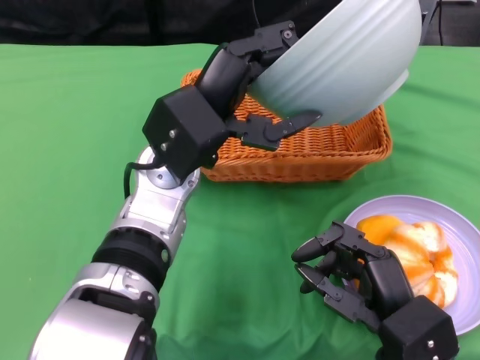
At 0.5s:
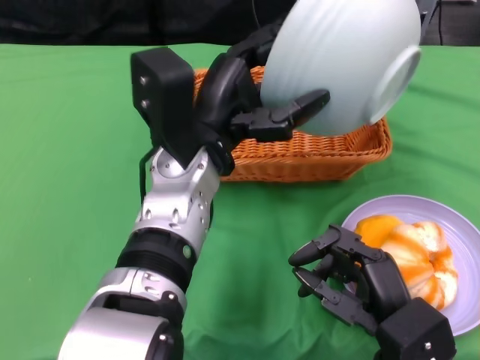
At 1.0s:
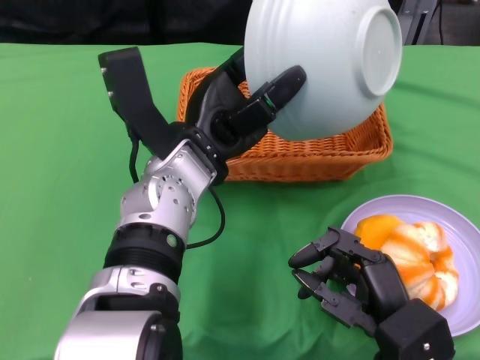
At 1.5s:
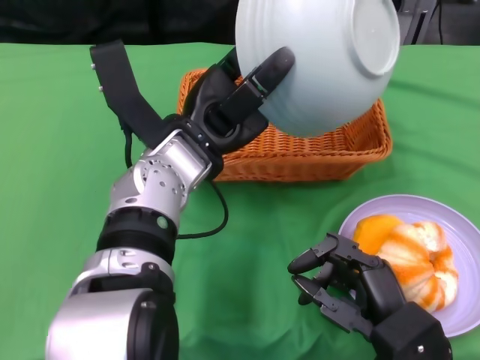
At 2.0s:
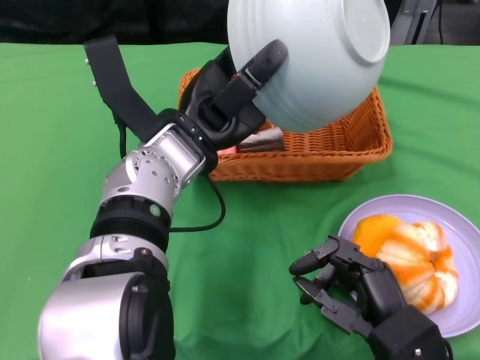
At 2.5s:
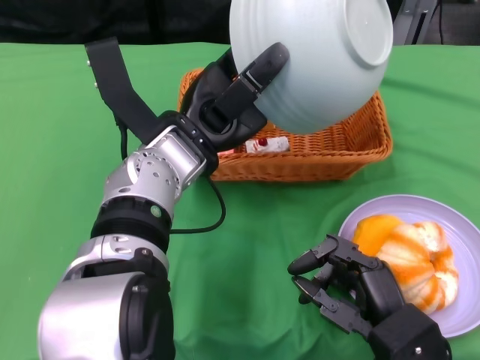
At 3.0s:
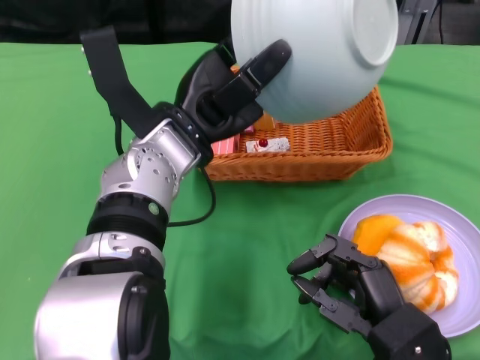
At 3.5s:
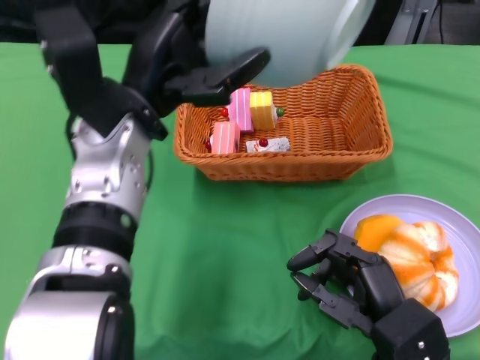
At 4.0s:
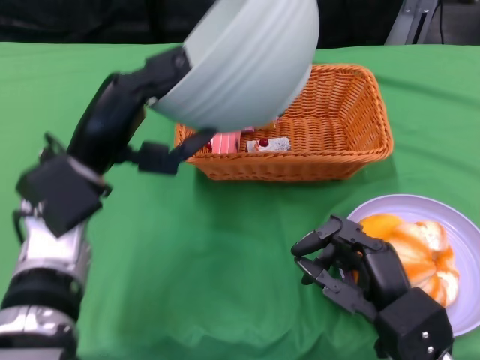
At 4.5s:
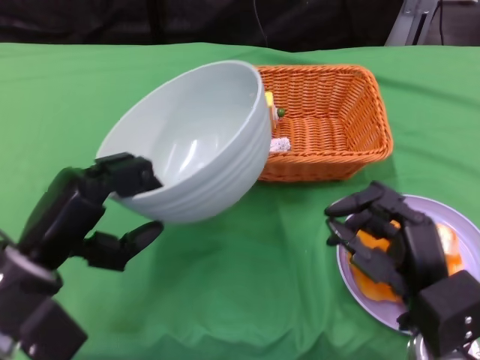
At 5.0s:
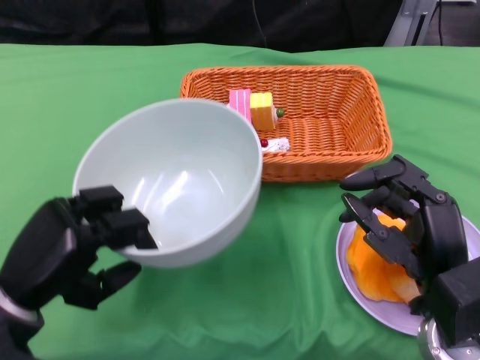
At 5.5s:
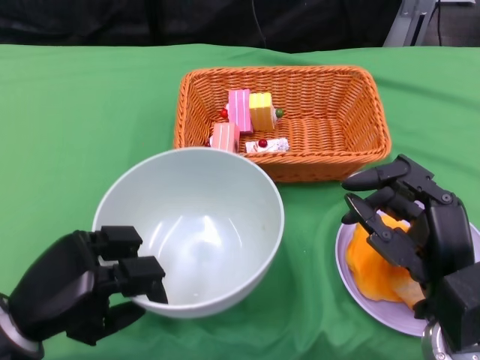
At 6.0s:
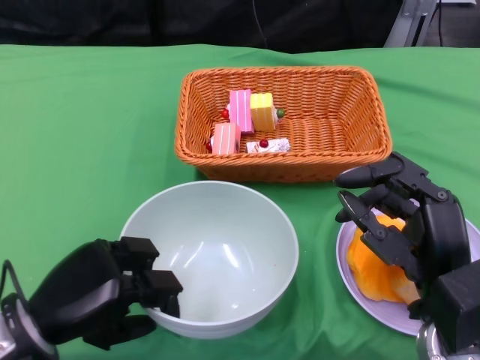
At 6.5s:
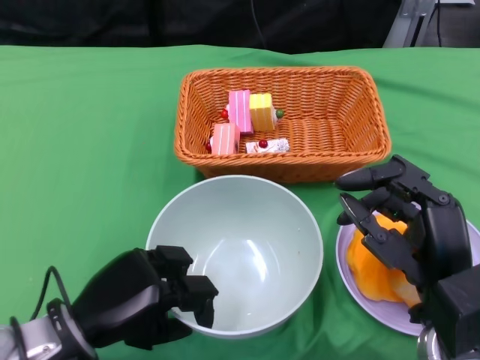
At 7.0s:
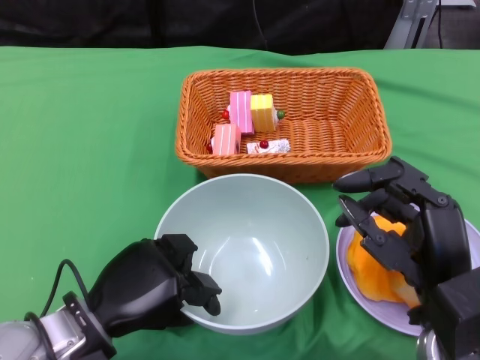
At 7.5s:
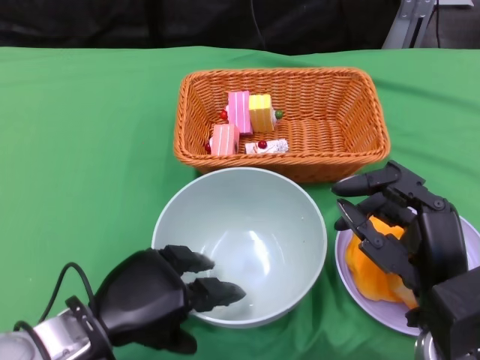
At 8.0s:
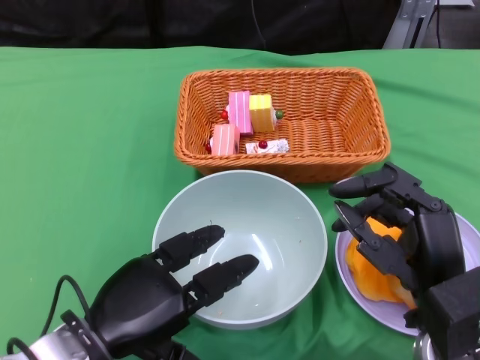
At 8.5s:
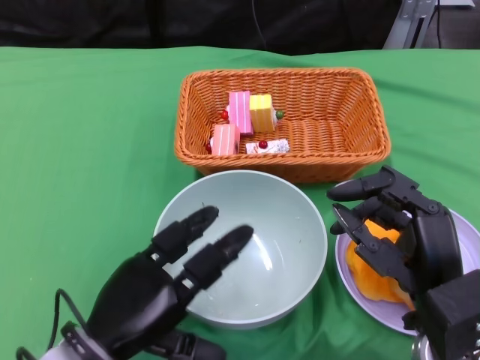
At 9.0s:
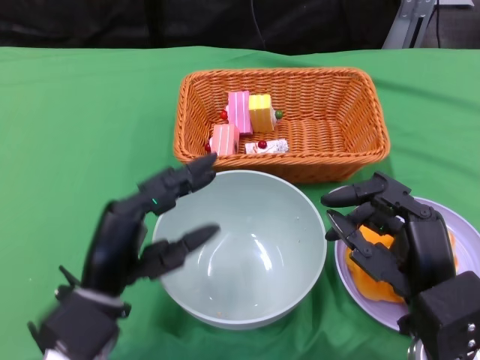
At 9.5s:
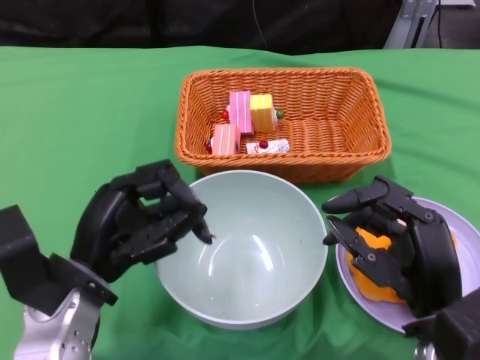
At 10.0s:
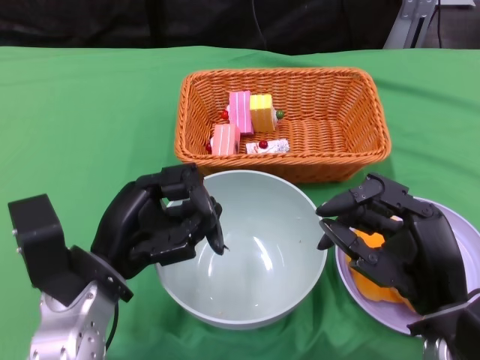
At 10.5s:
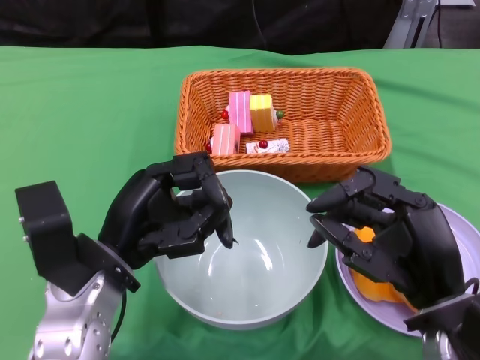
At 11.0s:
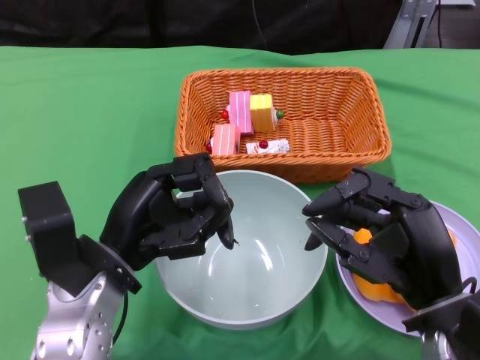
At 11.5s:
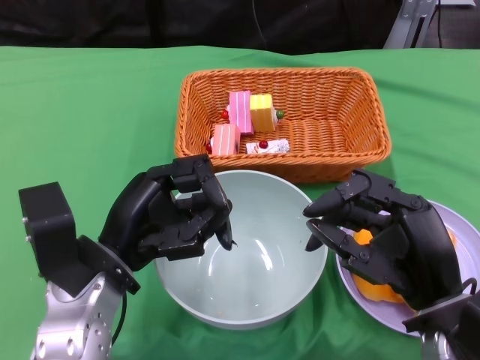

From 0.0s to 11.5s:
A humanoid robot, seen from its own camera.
Step, from 0.0s to 3.5s: Pour the cake into the basket with the left gripper.
Step, from 4.0s to 8.5s: Place the bowl on the table with the left gripper.
From 2.0s to 4.0s: The left hand heads to the left, covering some 10 cm.
From 4.0s to 6.0s: The left hand shifts approximately 15 cm backward, downward and to the left, while the right hand heads upward, covering approximately 5 cm.
From 6.0s to 7.5s: The left hand is displaced to the right by approximately 5 cm.
From 9.5s to 11.5s: The hands move only a little.

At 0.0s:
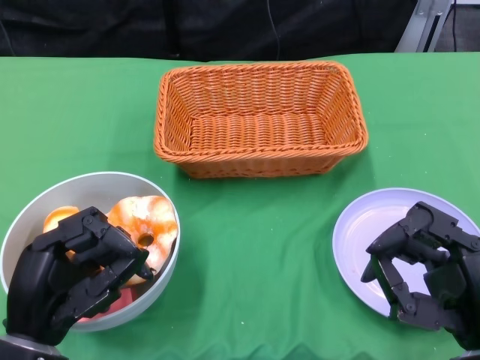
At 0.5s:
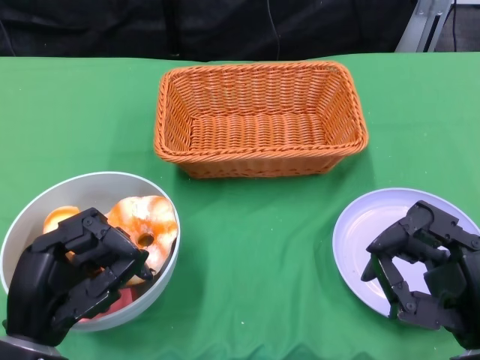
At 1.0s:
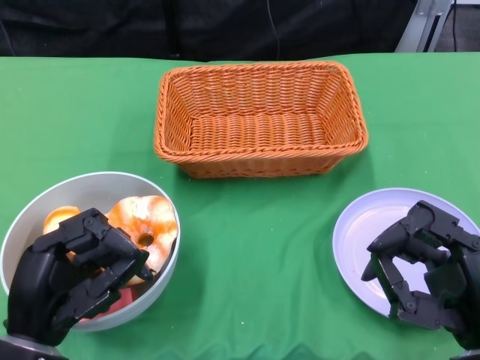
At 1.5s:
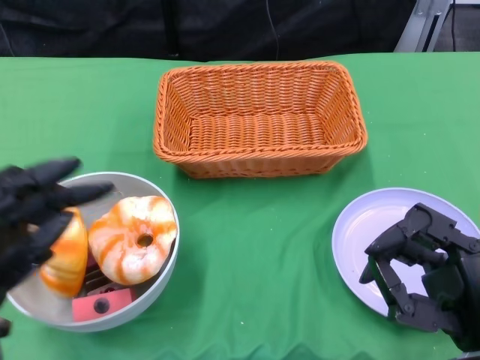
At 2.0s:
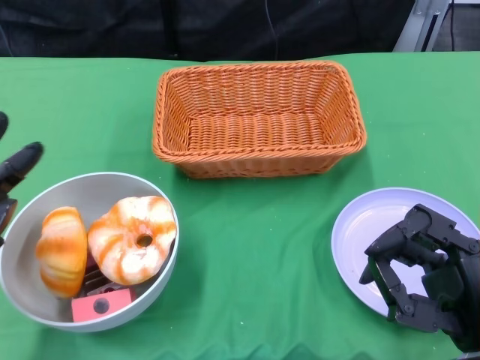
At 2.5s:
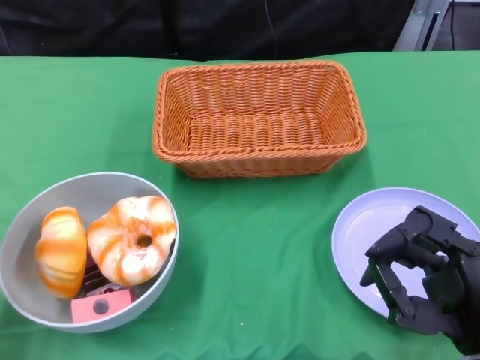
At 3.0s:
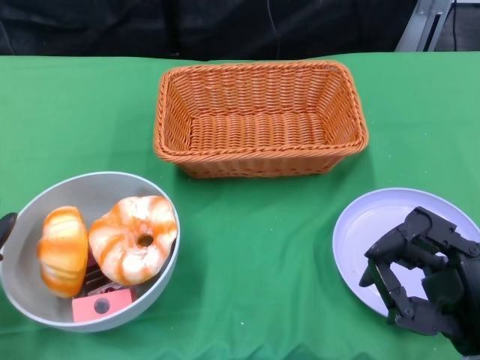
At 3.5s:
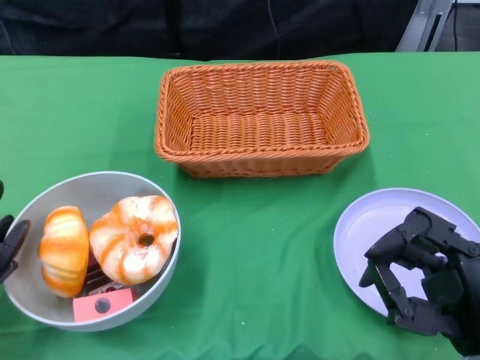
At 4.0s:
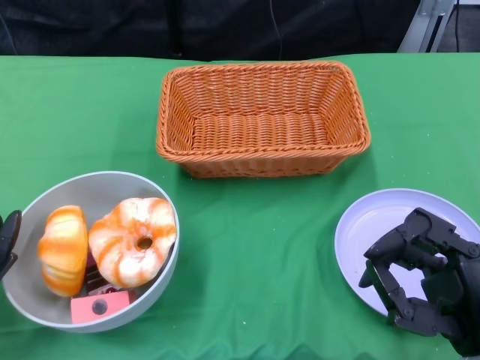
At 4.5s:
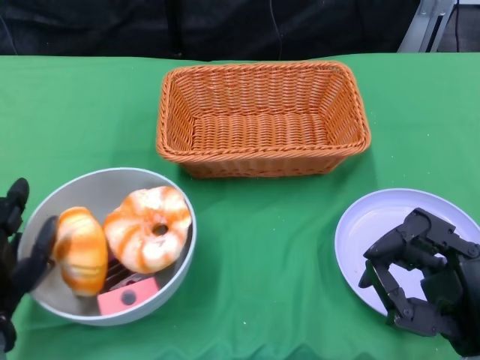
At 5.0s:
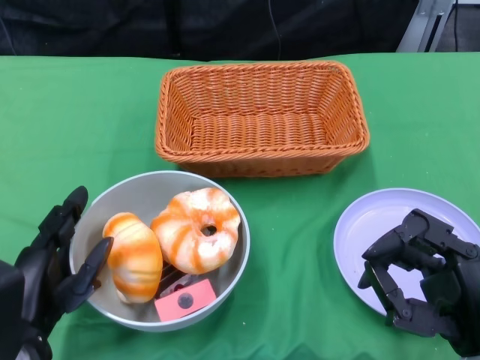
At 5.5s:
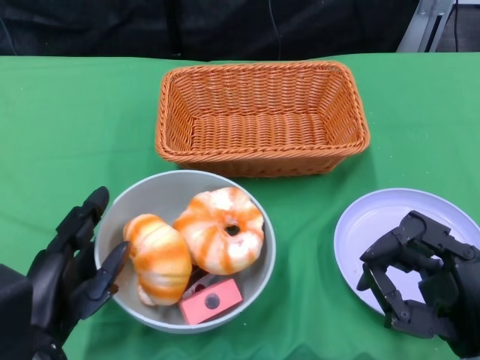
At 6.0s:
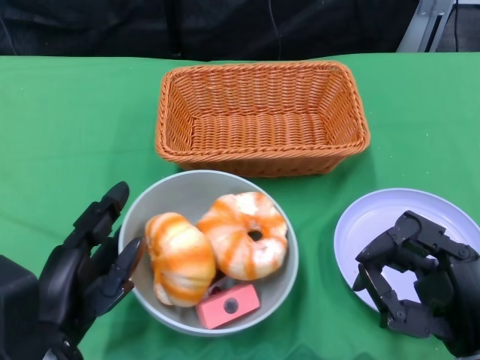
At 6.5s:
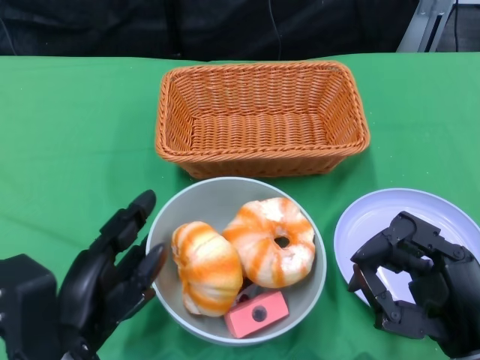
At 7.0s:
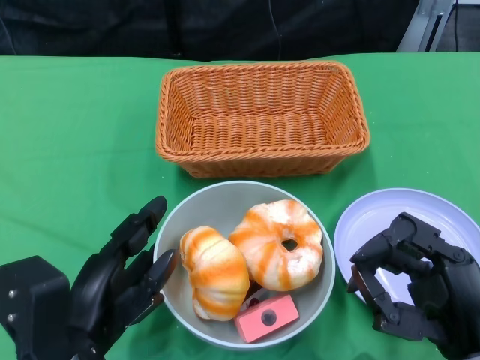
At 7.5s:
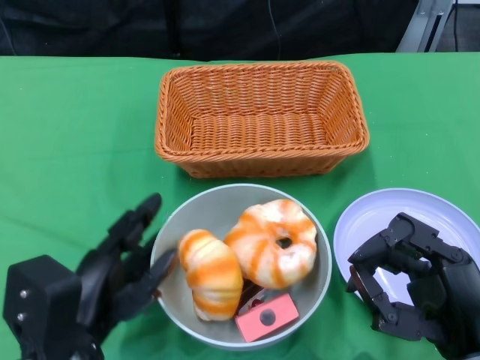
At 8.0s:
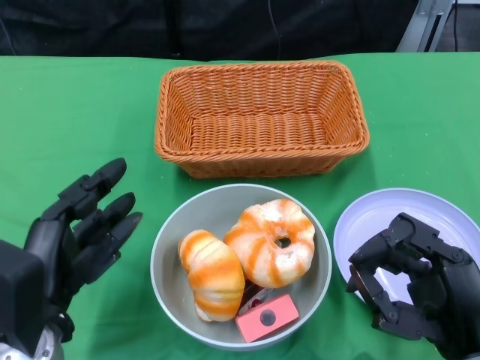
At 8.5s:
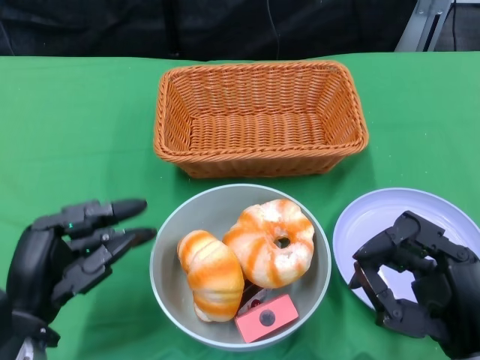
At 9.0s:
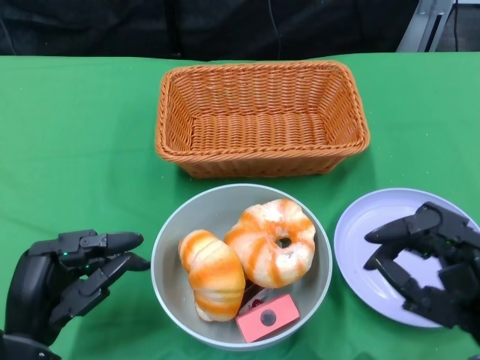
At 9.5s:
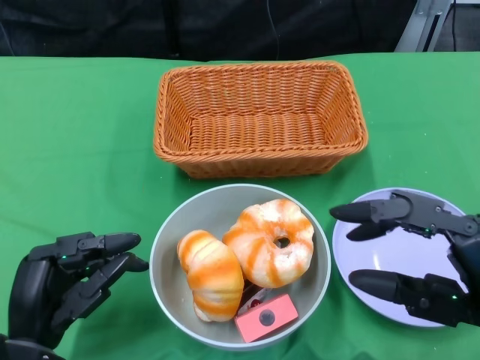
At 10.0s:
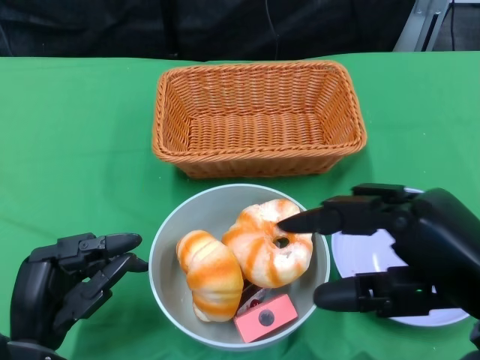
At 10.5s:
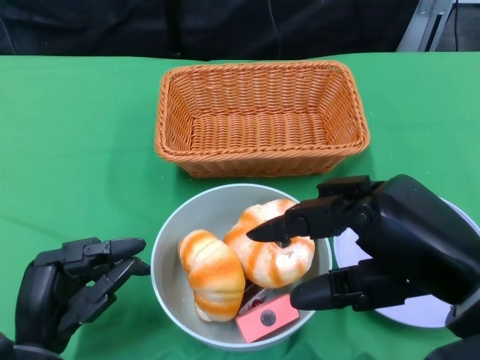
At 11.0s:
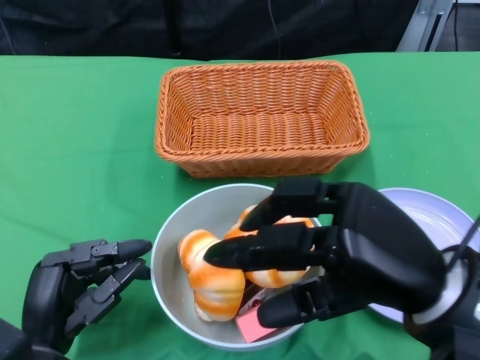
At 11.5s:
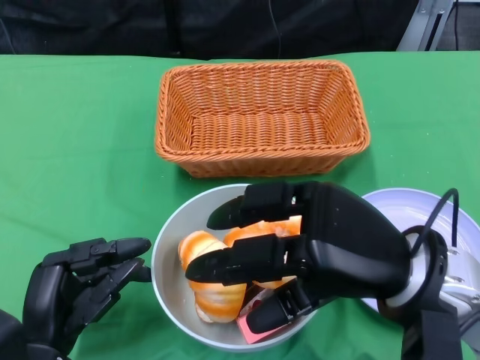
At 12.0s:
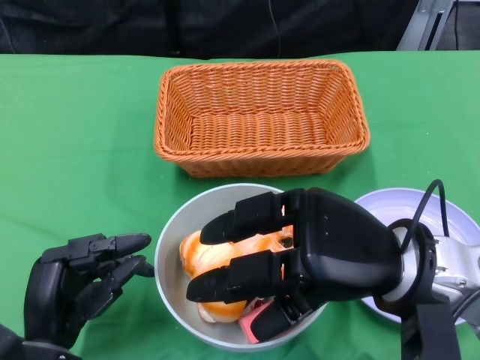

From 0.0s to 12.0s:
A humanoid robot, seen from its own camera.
Step, from 0.0s to 9.0s: Push the bowl to the center of the table using the left gripper.
From 2.0s to 4.0s: The left hand is displaced downward by about 5 cm.
From 4.0s to 6.0s: The left hand moves to the right, about 10 cm.
From 8.0s to 10.0s: The left hand shifts roughly 5 cm downward. Meanwhile the right hand heads upward, covering some 10 cm.
From 10.0s to 12.0s: The right hand shifts roughly 10 cm forward and to the left.

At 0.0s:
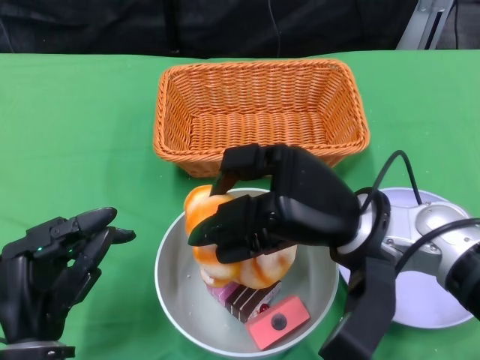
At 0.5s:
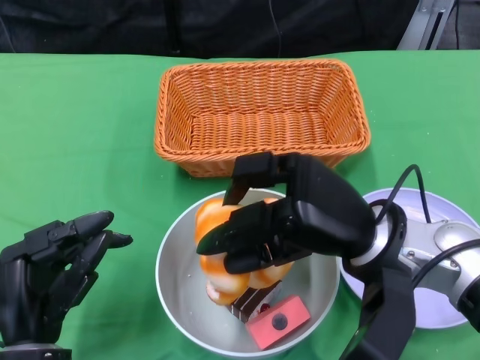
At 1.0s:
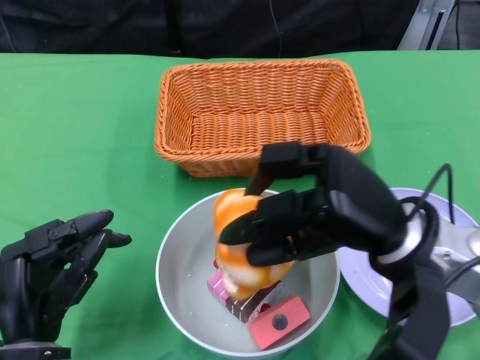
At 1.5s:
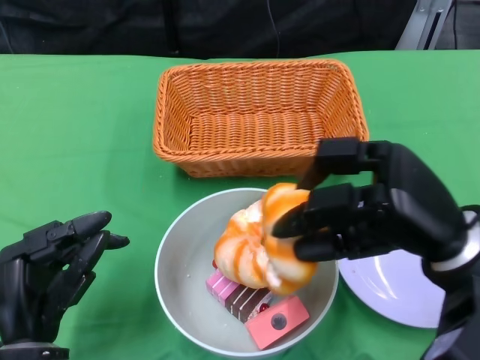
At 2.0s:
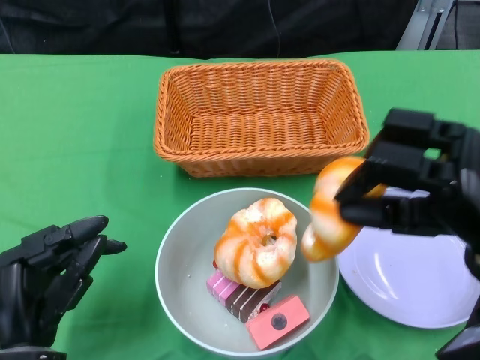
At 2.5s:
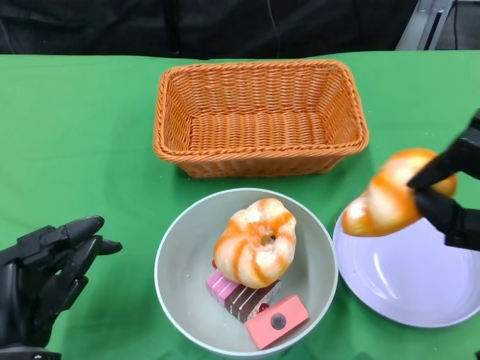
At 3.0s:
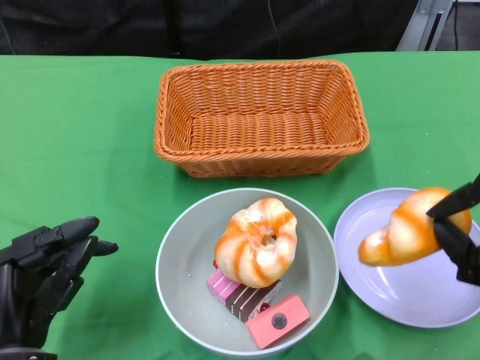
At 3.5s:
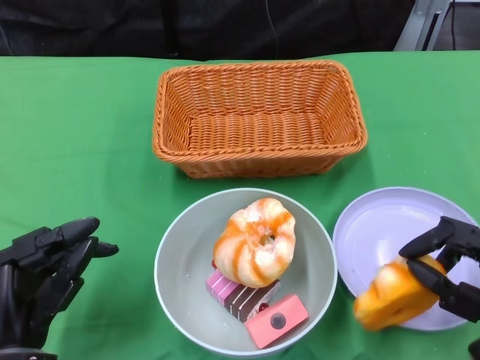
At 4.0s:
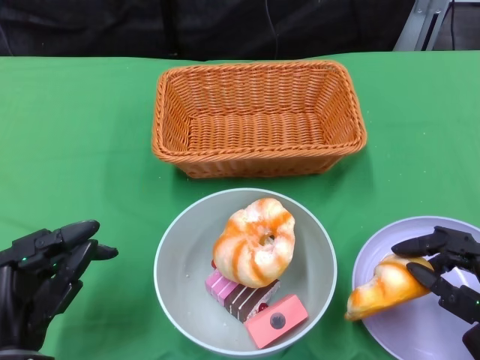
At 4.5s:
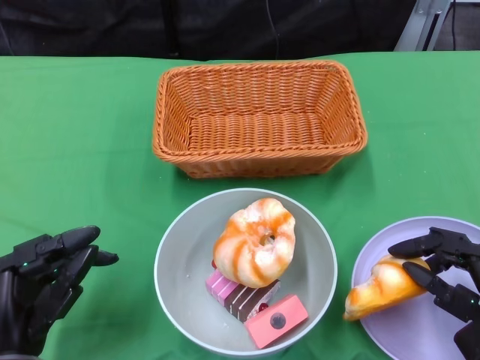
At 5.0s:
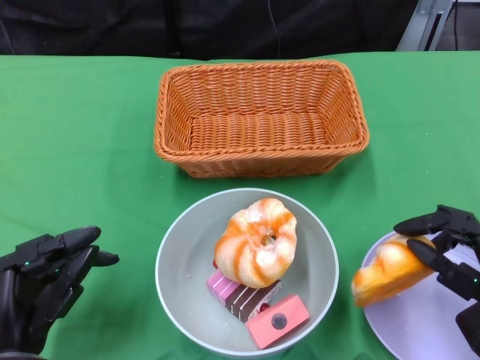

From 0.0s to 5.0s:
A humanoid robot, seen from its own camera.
From 0.0s to 2.5s: The right hand goes approximately 15 cm to the right and backward.
From 2.5s to 5.0s: The right hand heads downward, covering some 10 cm.
